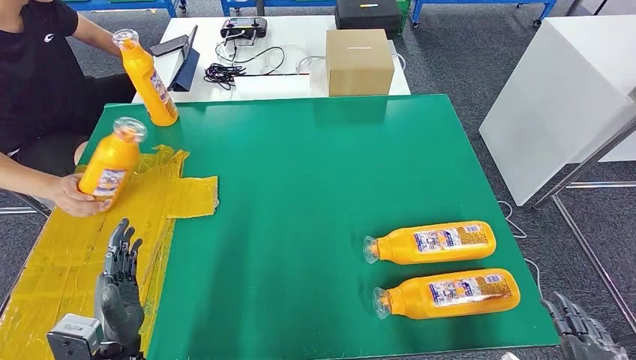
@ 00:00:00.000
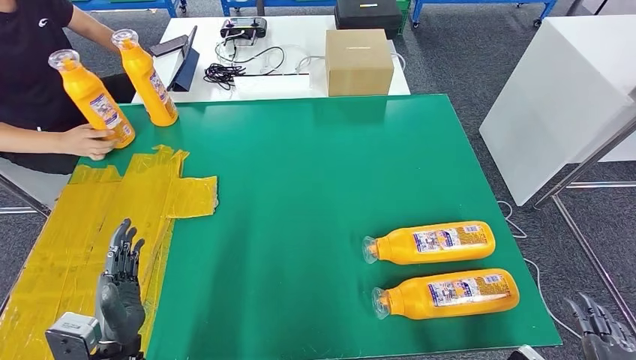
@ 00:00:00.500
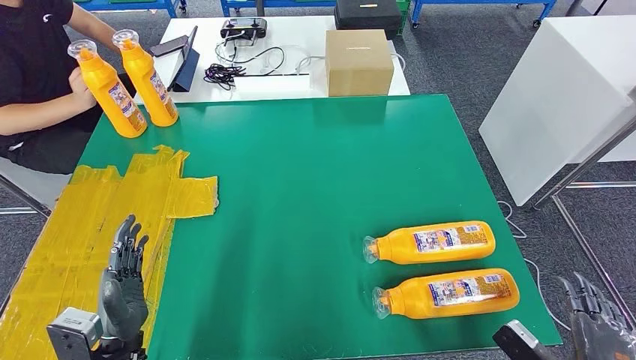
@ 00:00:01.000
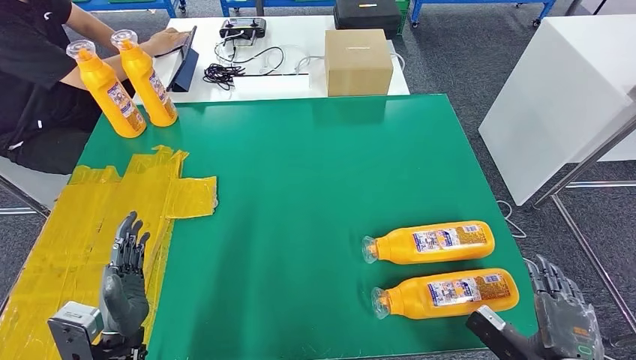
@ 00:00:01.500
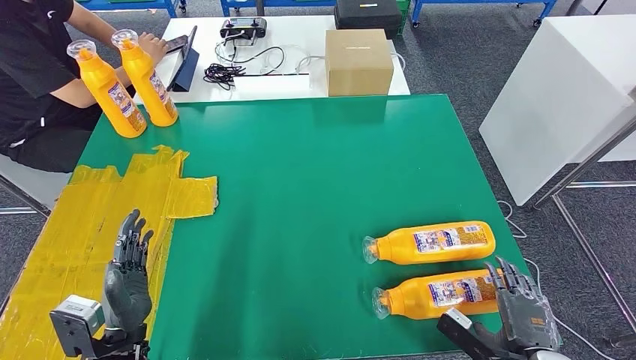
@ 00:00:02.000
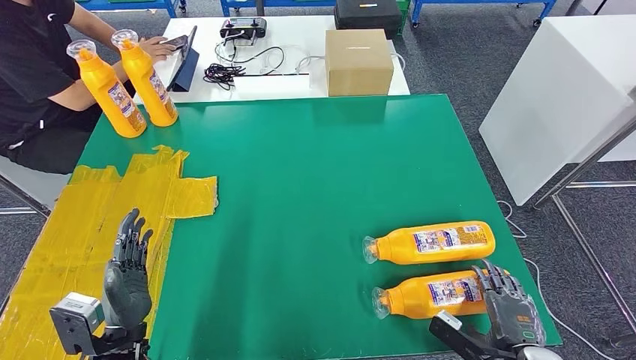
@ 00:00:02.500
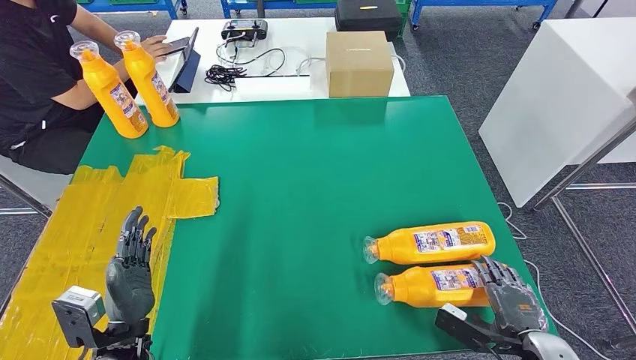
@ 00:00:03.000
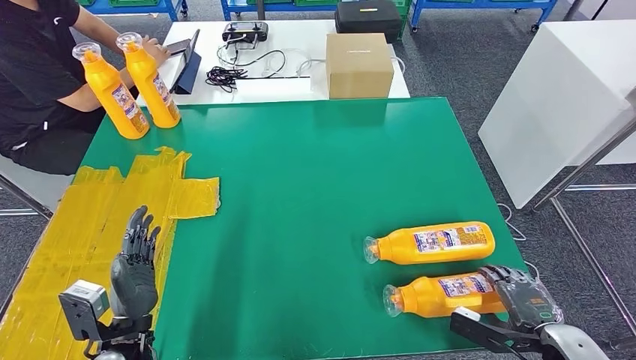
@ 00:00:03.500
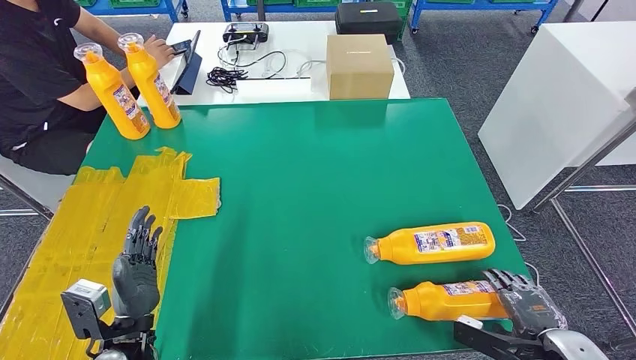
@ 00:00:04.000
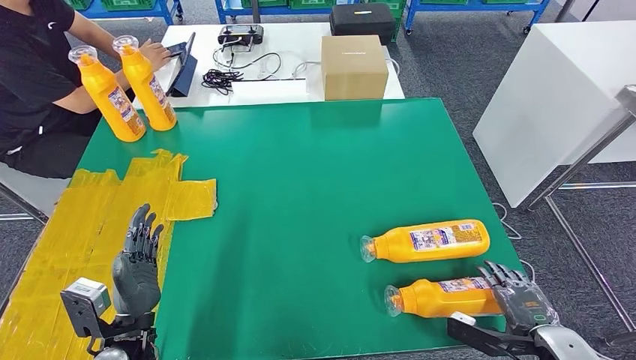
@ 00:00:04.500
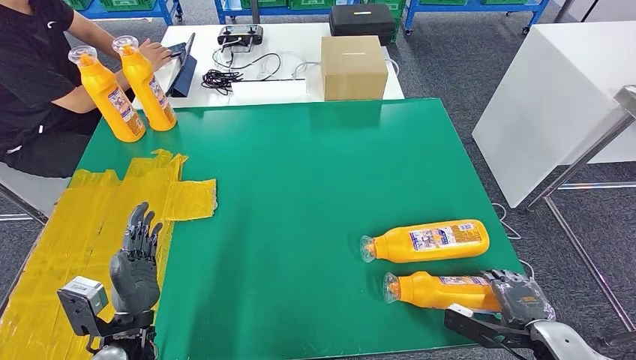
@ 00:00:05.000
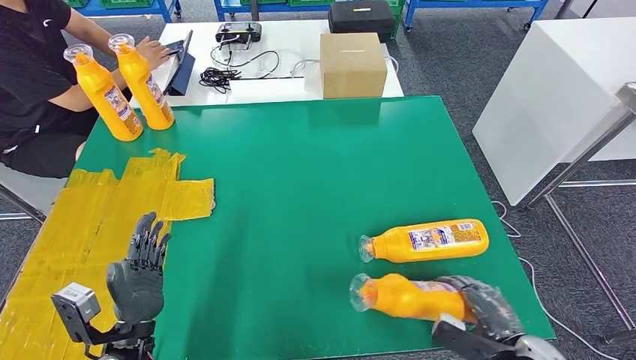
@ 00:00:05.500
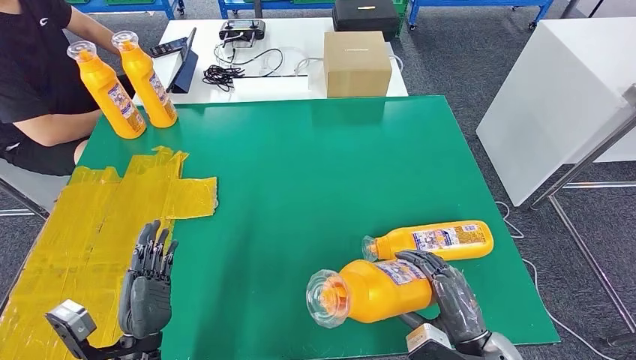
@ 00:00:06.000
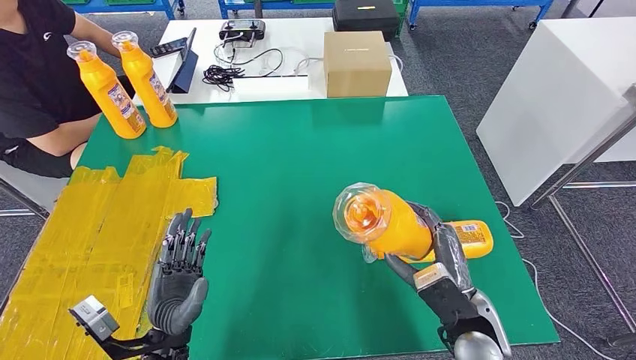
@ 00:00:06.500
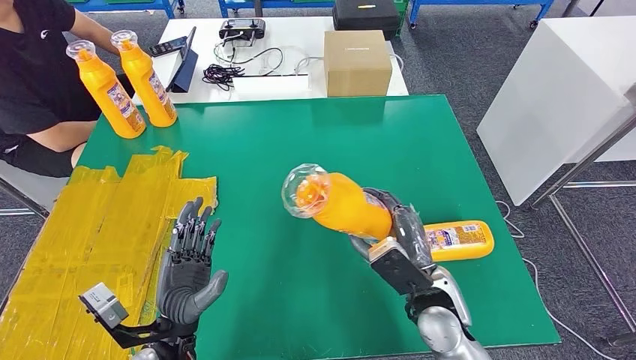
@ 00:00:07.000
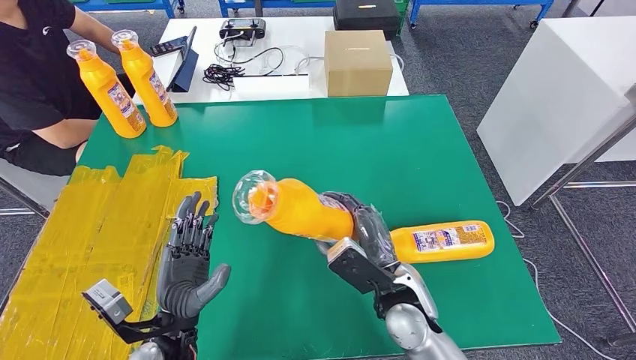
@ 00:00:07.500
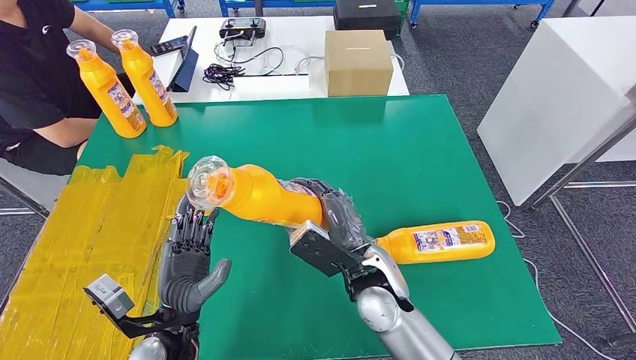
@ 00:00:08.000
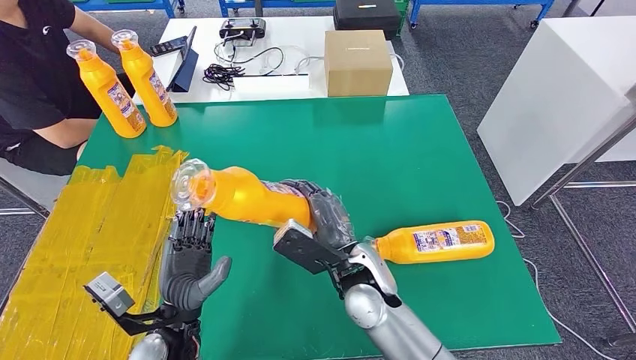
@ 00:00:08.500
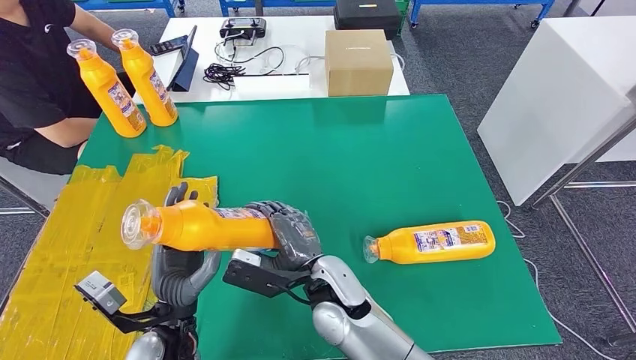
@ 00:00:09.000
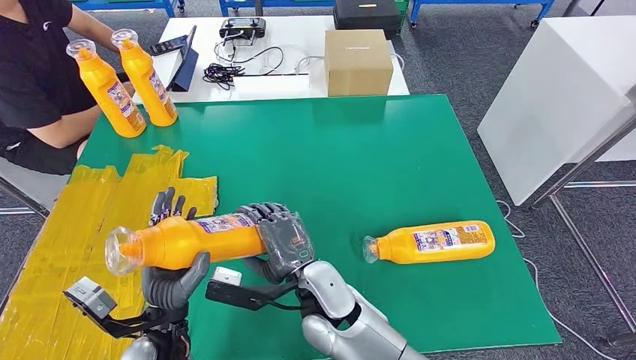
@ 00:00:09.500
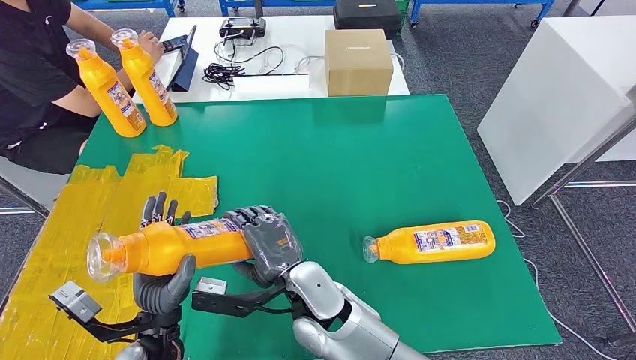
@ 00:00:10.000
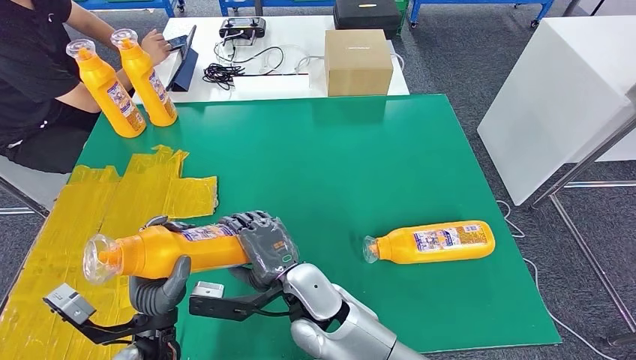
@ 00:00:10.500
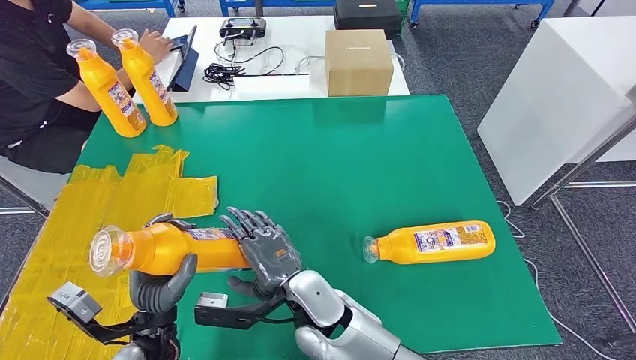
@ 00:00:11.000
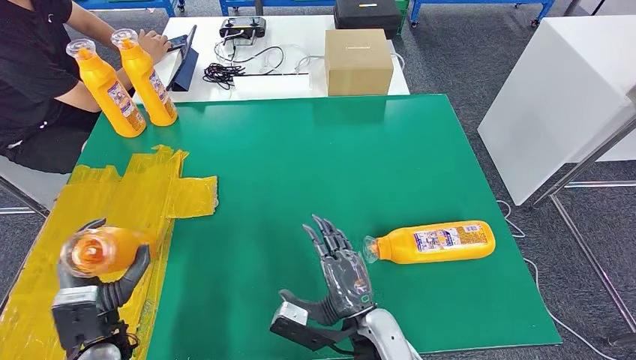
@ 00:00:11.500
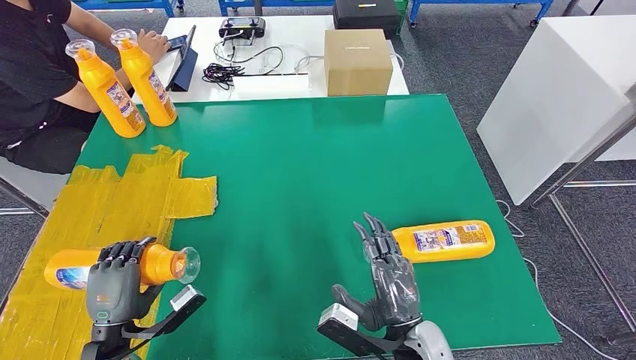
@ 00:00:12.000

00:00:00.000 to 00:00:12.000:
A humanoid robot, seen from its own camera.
Step, 00:00:00.000 to 00:00:07.500: Pick up the bottle from the table.
00:00:00.000 to 00:00:02.000: The right hand is displaced forward and downward by about 10 cm.
00:00:02.000 to 00:00:04.000: The right hand moves to the right, roughly 5 cm.
00:00:06.000 to 00:00:08.000: The left hand heads to the right, covering approximately 5 cm, while the right hand moves to the left and forward, approximately 20 cm.
00:00:08.000 to 00:00:10.000: The right hand travels to the left by roughly 10 cm.
00:00:10.000 to 00:00:12.000: The left hand travels to the left by approximately 10 cm. The right hand goes some 20 cm to the right and backward.

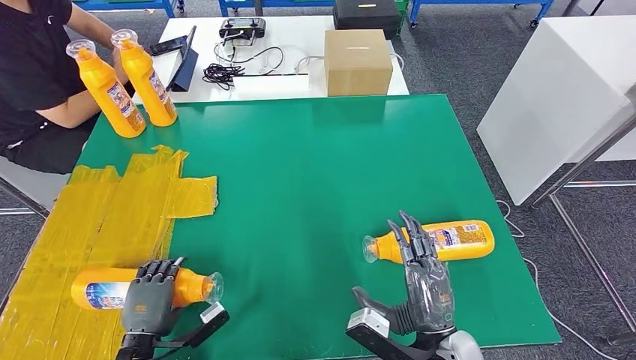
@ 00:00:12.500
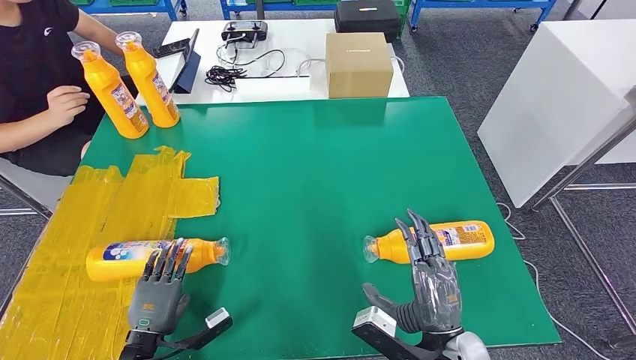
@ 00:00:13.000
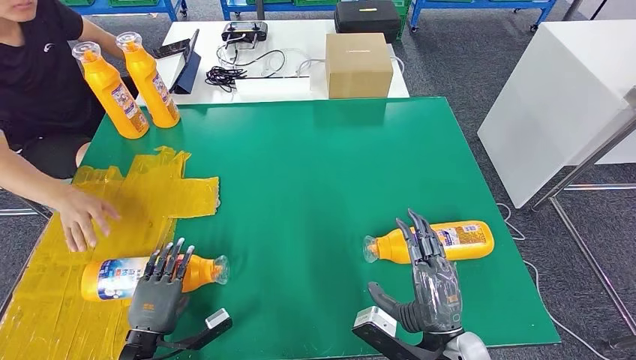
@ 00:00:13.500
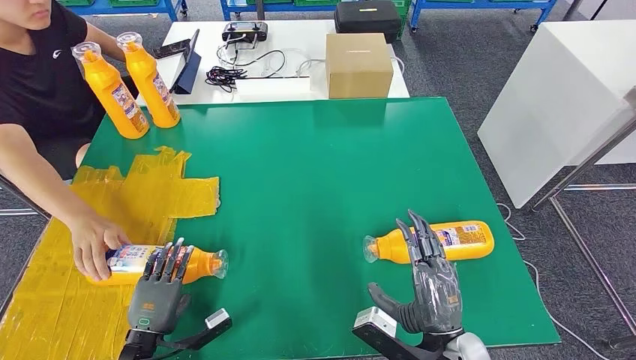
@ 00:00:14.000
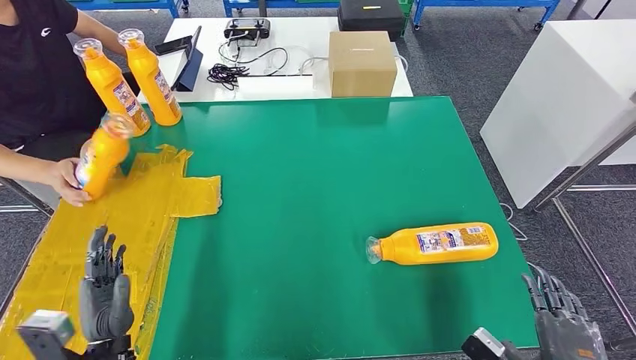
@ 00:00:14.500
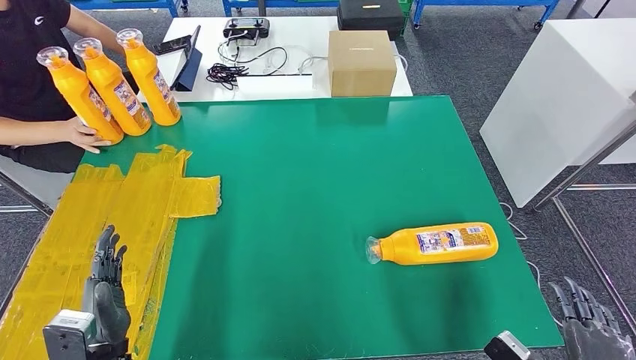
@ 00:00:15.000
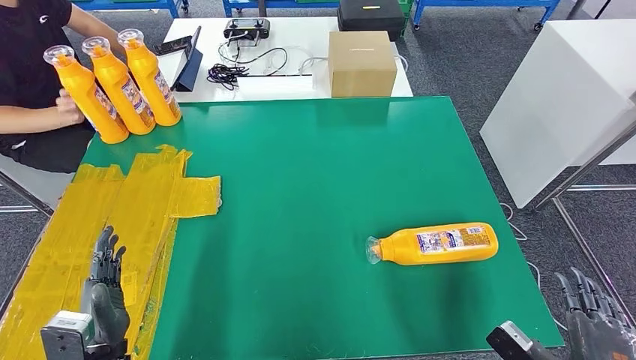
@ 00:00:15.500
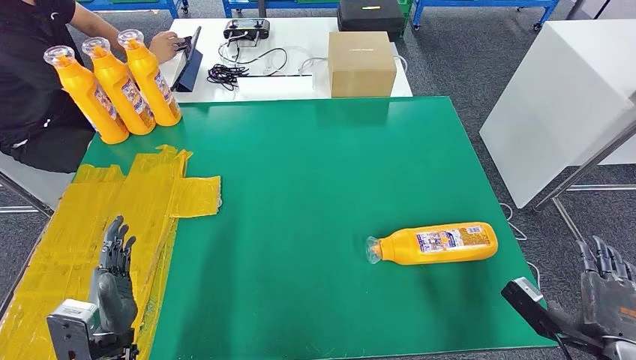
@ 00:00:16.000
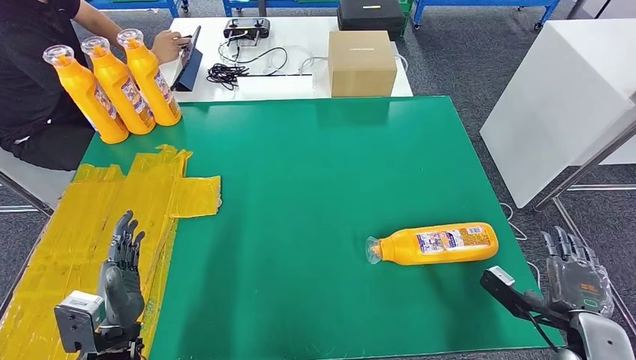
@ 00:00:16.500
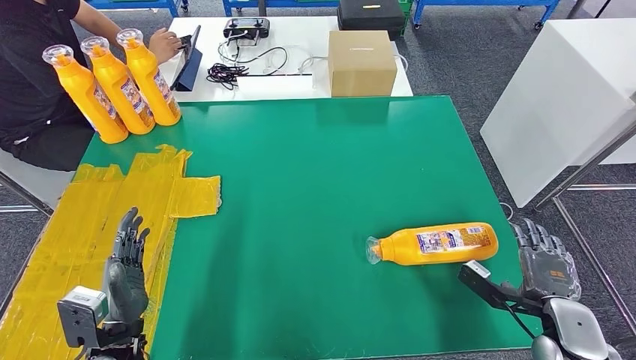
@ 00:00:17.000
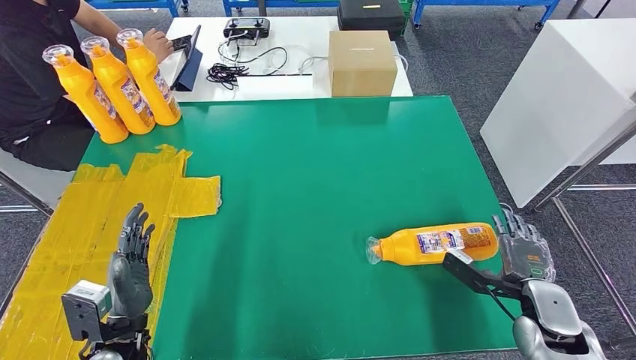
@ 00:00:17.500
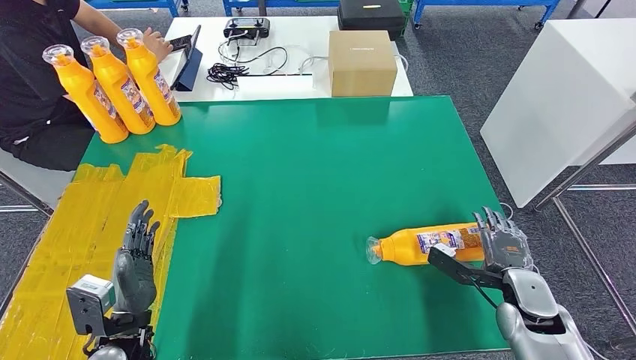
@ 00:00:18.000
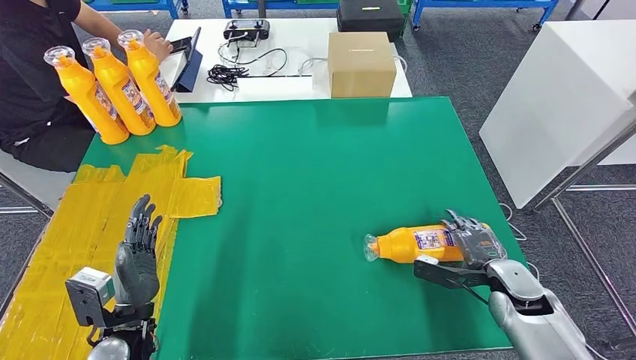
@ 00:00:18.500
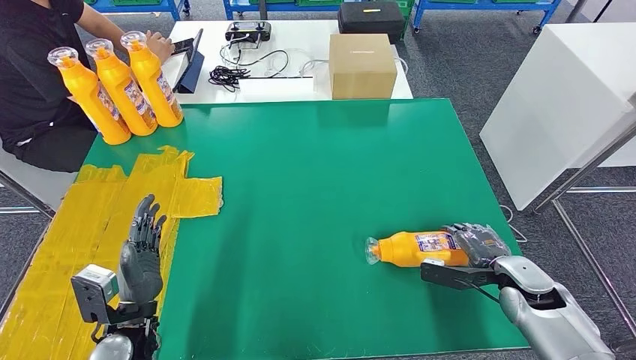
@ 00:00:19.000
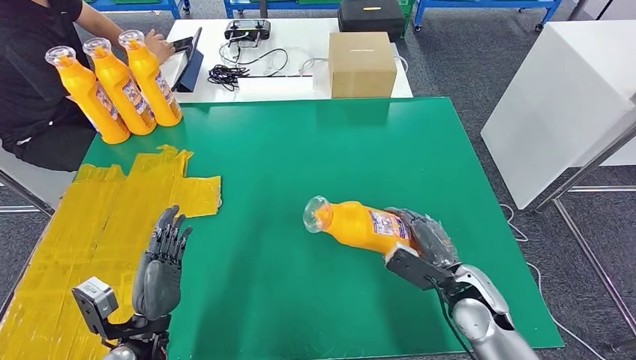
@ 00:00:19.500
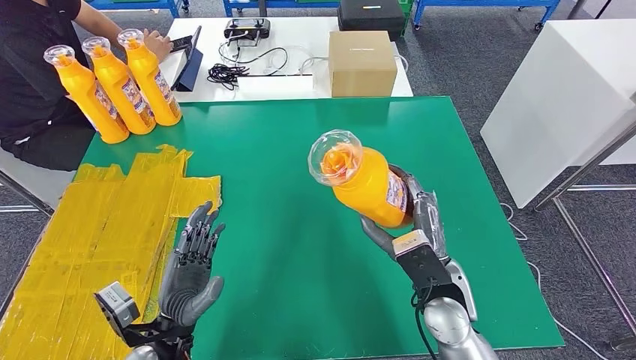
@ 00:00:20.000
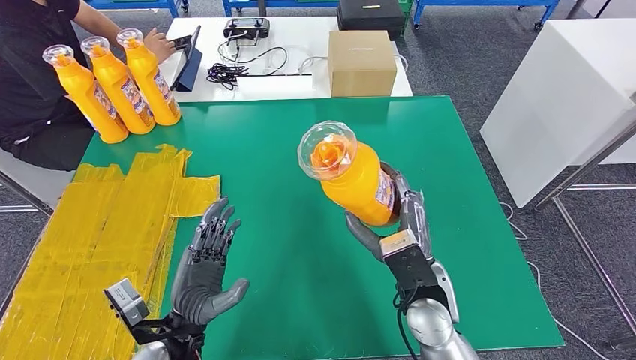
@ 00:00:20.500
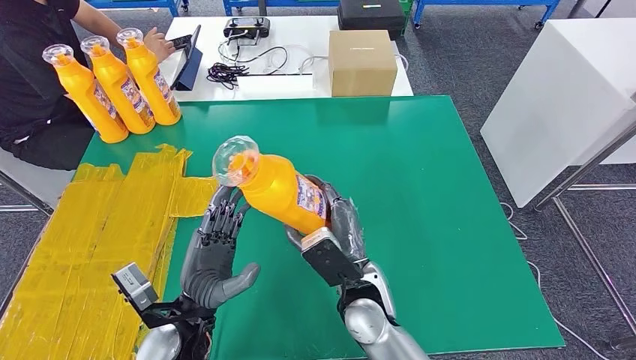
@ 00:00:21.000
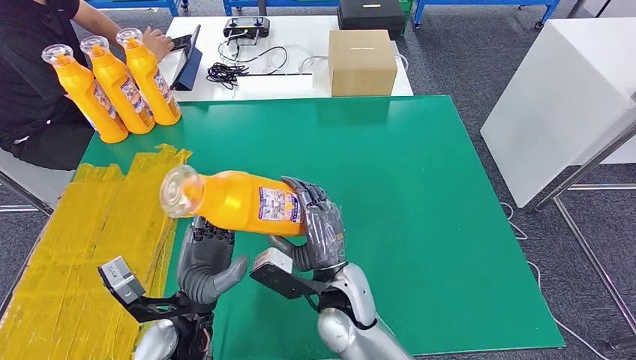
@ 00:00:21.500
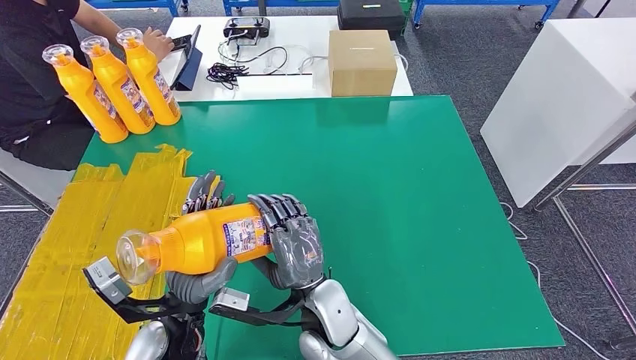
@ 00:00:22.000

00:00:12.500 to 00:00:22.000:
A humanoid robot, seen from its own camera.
Step, 00:00:13.500 to 00:00:21.500: Pick up the bottle from the table.
00:00:14.500 to 00:00:16.500: The right hand heads forward and to the right, covering approximately 10 cm.
00:00:16.500 to 00:00:18.000: The right hand goes about 10 cm forward and to the left.
00:00:18.000 to 00:00:20.000: The left hand travels to the right by some 5 cm; the right hand travels to the left and upward by some 20 cm.
00:00:20.000 to 00:00:22.000: The left hand shifts by roughly 5 cm. The right hand moves to the left, about 20 cm.
